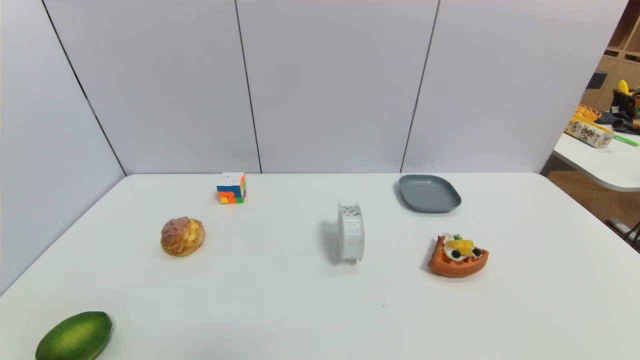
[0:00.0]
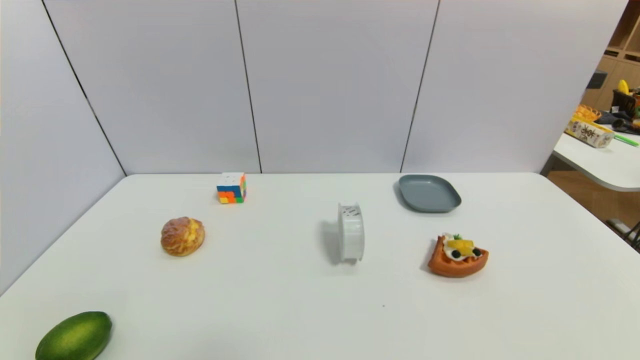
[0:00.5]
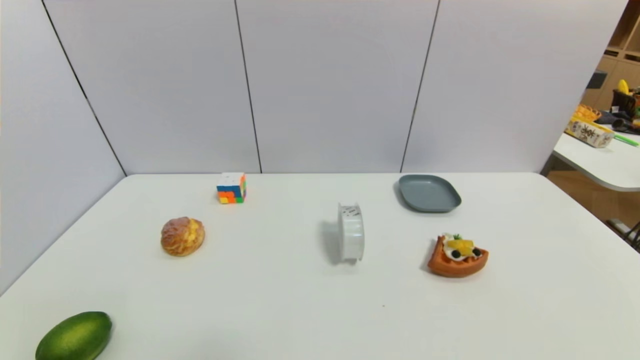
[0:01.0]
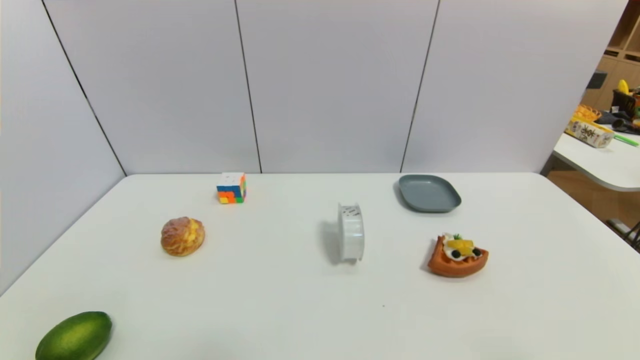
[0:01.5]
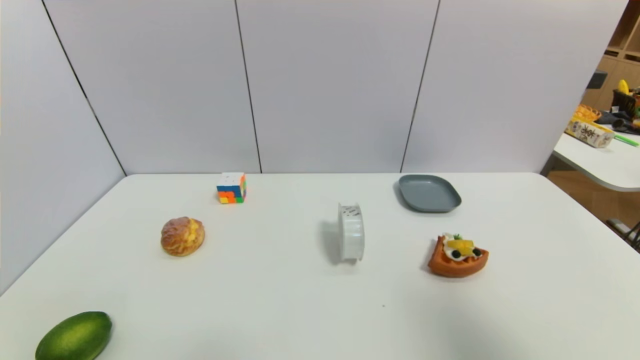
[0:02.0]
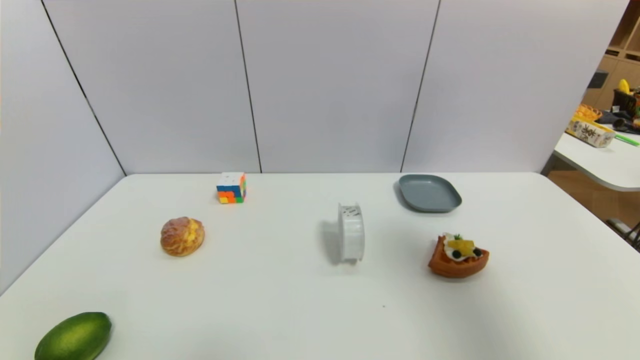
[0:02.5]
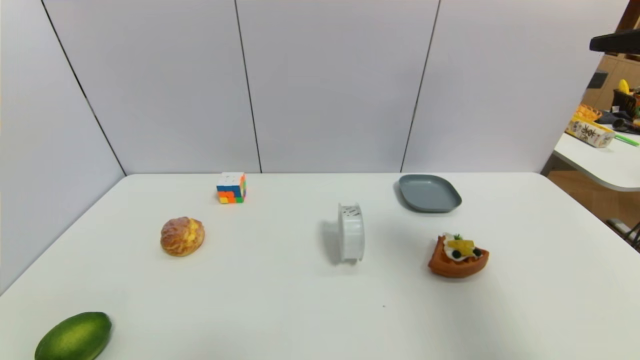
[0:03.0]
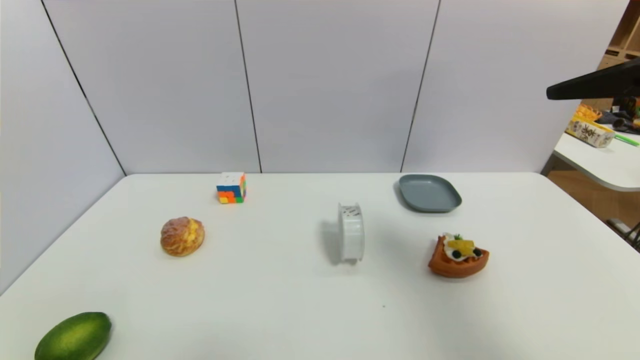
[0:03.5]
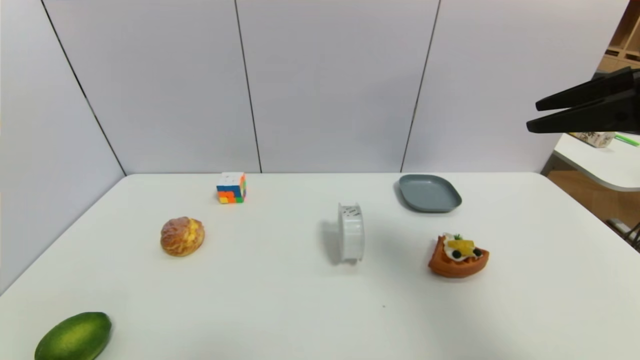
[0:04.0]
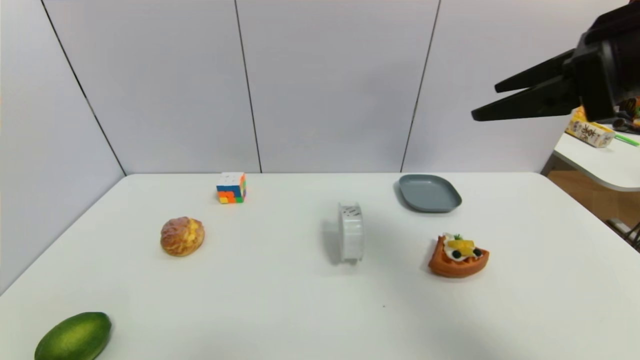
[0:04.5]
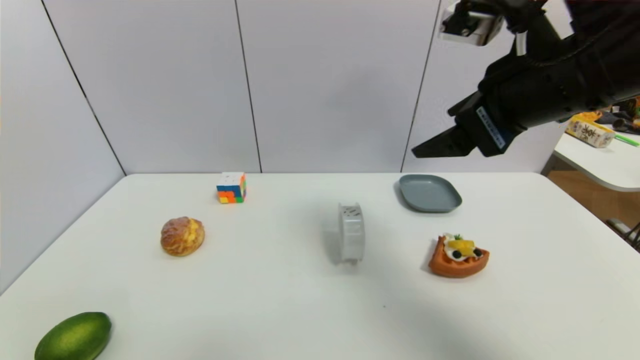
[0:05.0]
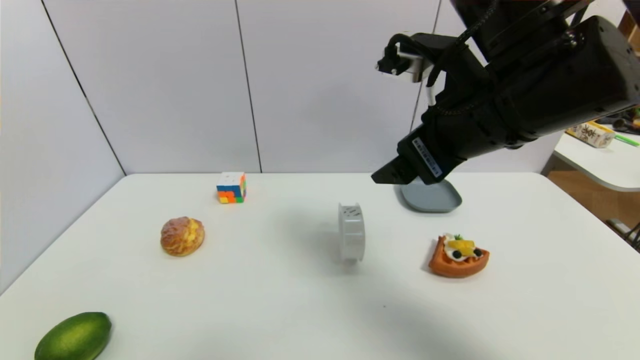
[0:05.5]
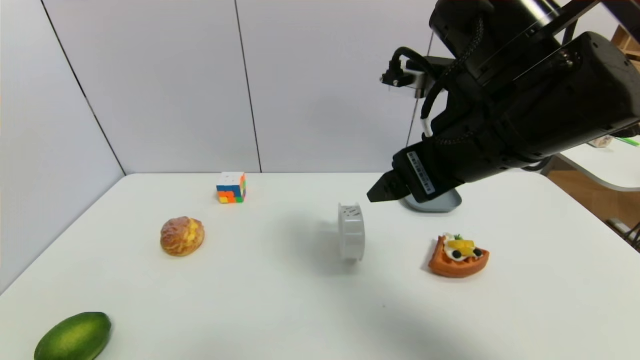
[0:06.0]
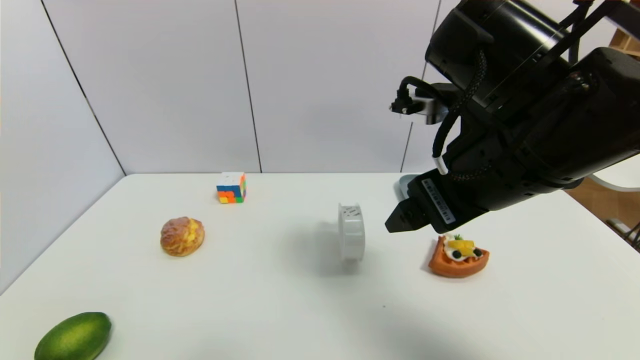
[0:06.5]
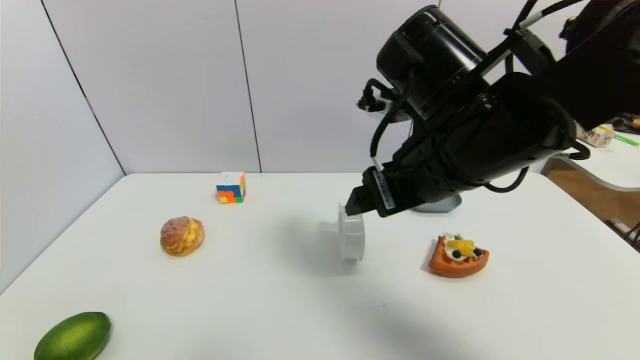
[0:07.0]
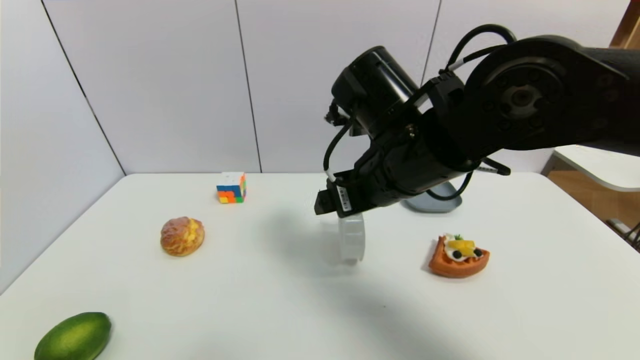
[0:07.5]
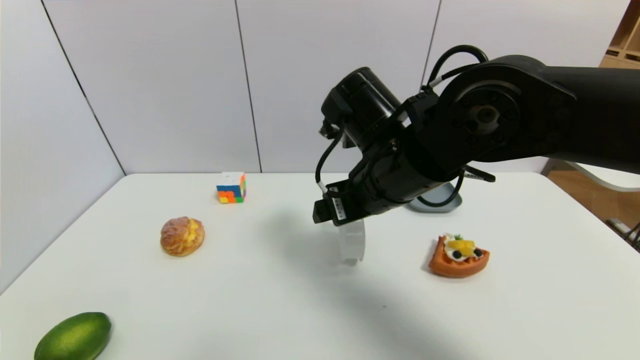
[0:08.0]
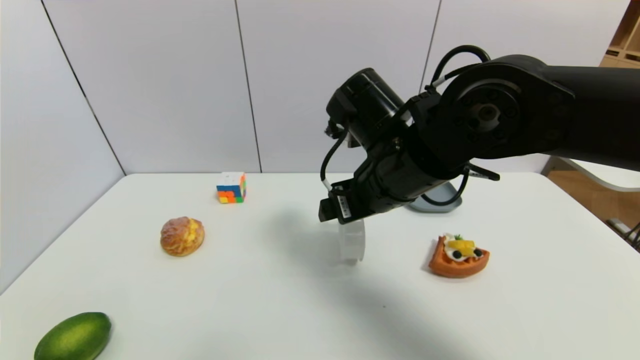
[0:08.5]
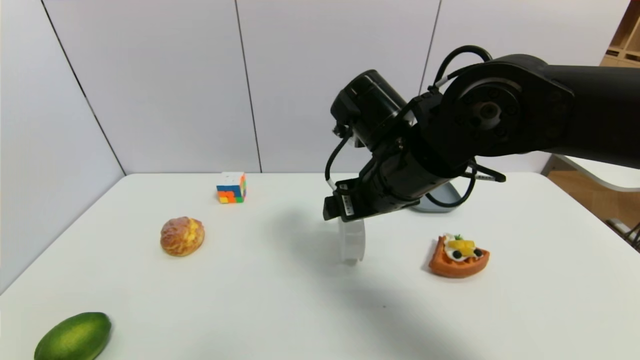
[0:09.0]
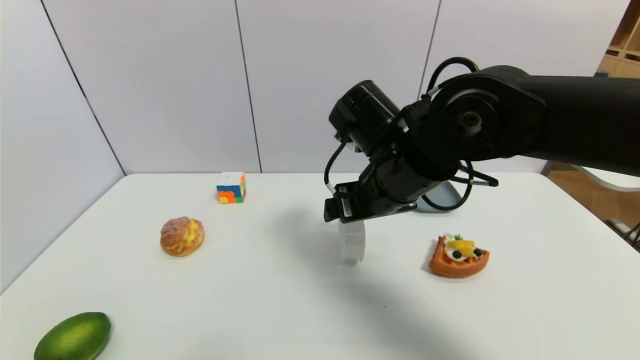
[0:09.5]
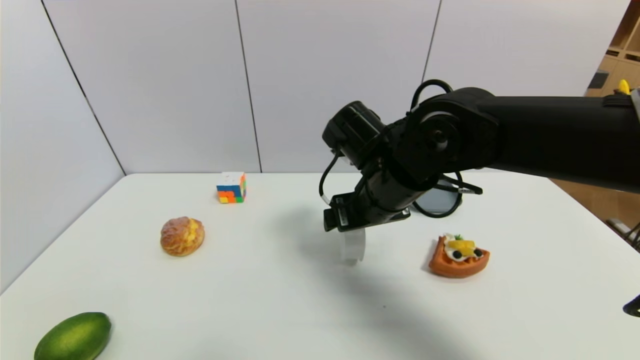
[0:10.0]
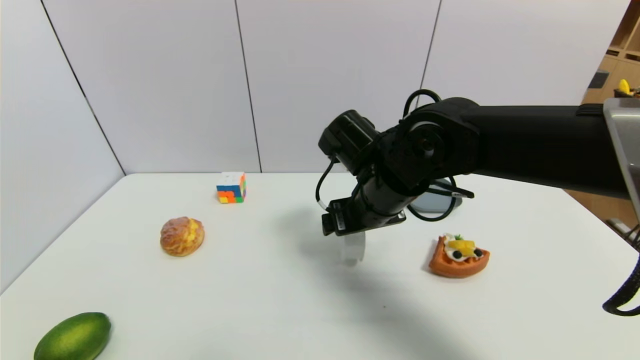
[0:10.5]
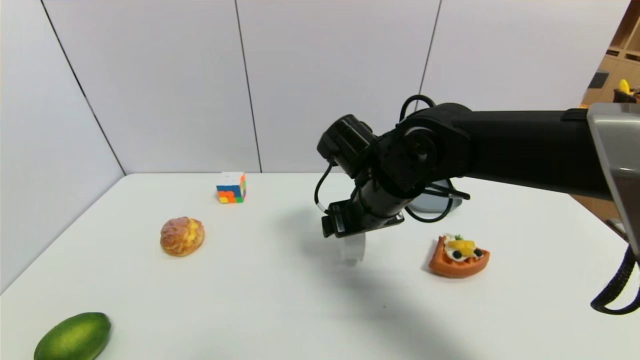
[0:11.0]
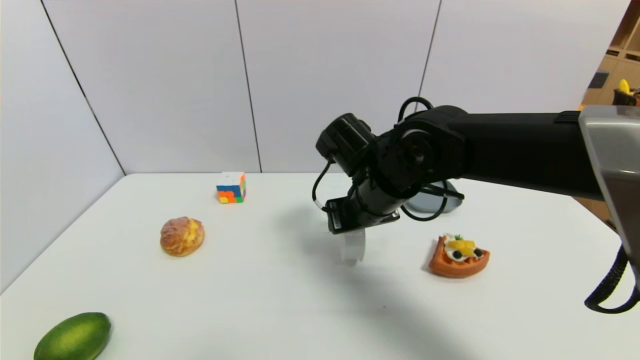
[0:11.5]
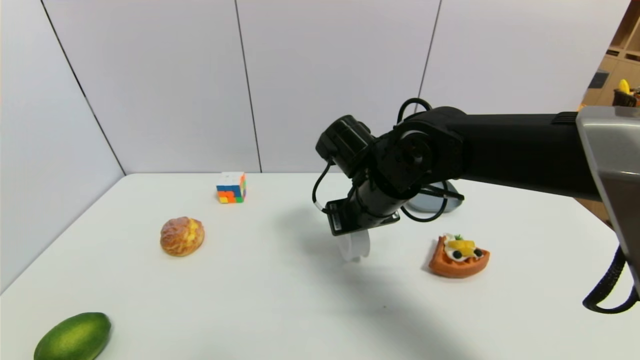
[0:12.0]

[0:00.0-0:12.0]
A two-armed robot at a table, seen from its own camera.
Task of the whole recording: use a gripper to pick the target object and place on the dish.
Step, 0:00.0 to 0:12.0: Grasp the tape with the right gripper.
0:00.0 to 0:02.0: The right gripper heads upward, covering about 30 cm.
0:02.0 to 0:04.0: The right gripper is displaced forward by approximately 15 cm, and opens its fingers.
0:04.0 to 0:06.0: The right gripper heads to the left, covering about 15 cm, and opens its fingers.
0:06.0 to 0:08.0: The right gripper shifts some 10 cm downward and to the left.
0:08.0 to 0:10.0: The grippers make only small movements.
0:10.0 to 0:12.0: The right gripper closes its fingers.

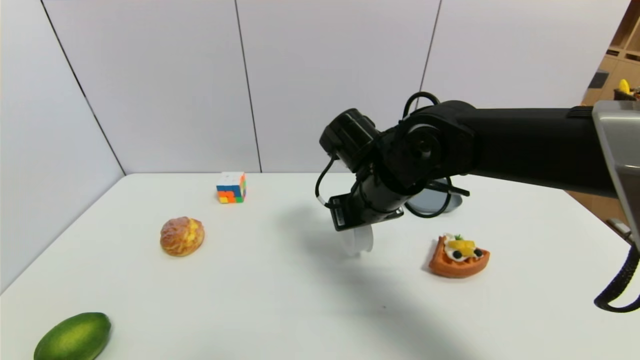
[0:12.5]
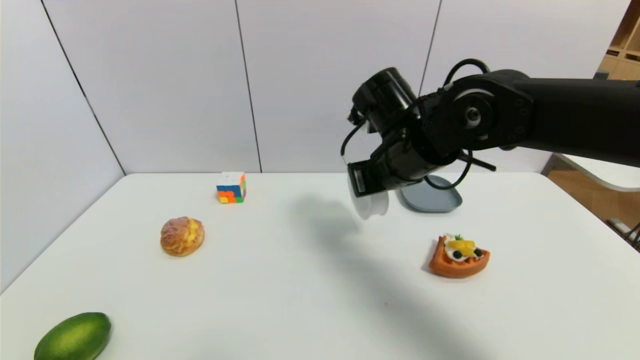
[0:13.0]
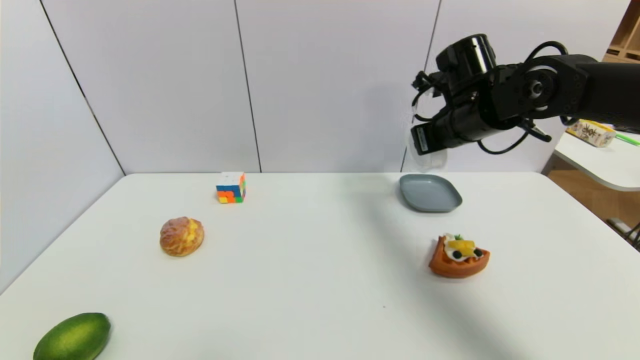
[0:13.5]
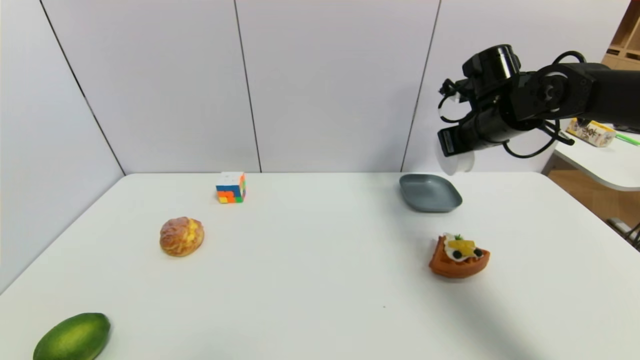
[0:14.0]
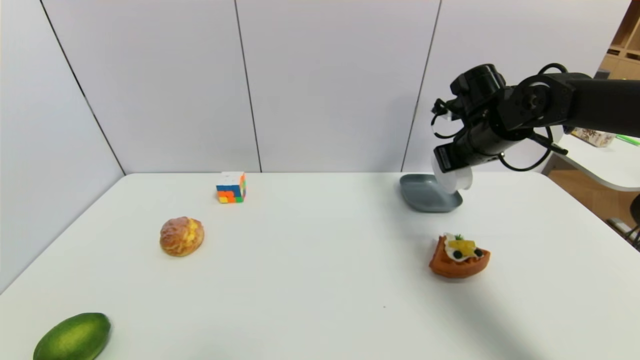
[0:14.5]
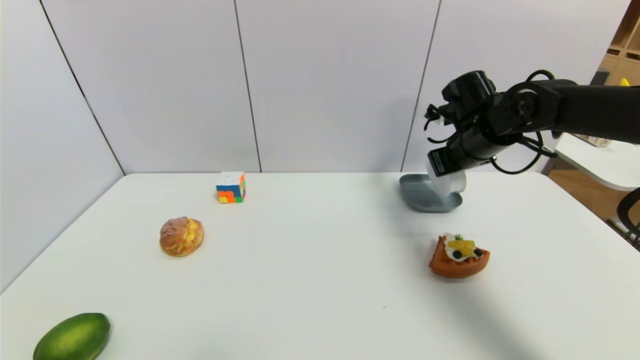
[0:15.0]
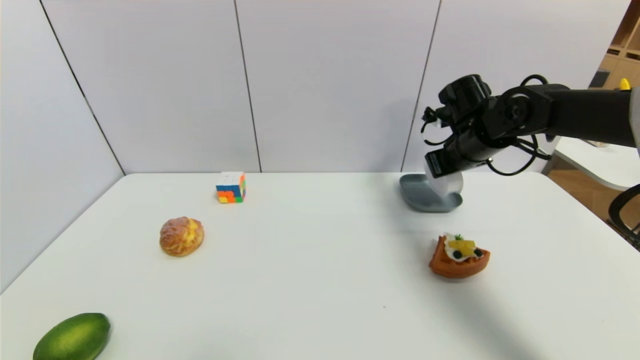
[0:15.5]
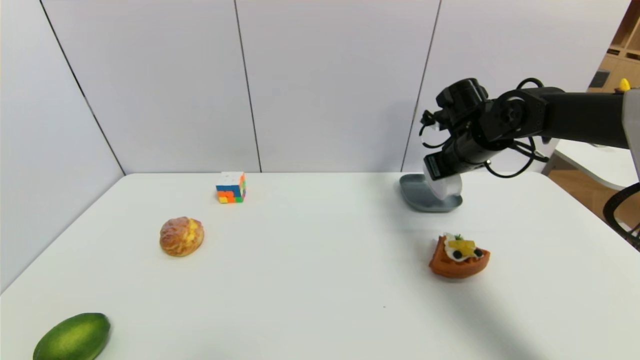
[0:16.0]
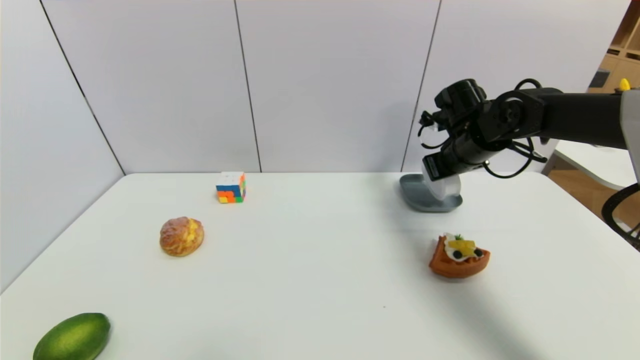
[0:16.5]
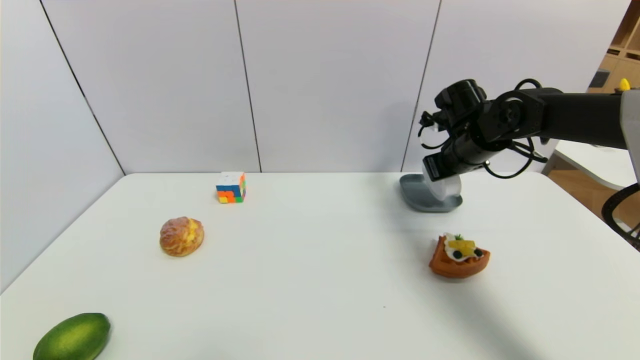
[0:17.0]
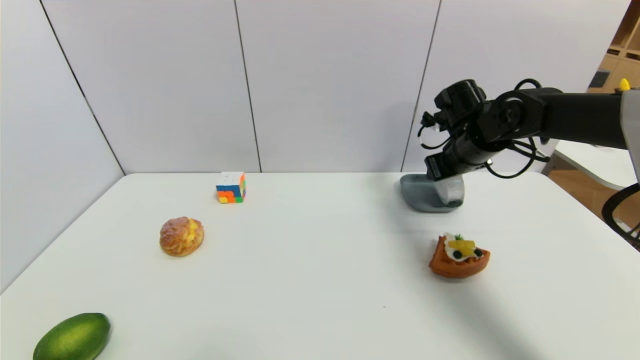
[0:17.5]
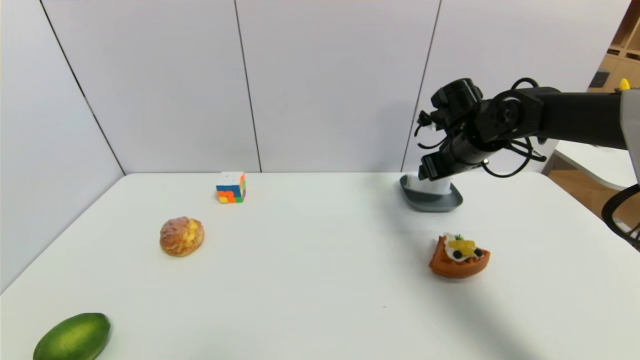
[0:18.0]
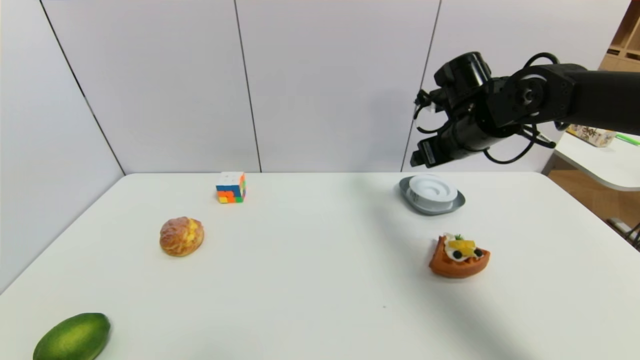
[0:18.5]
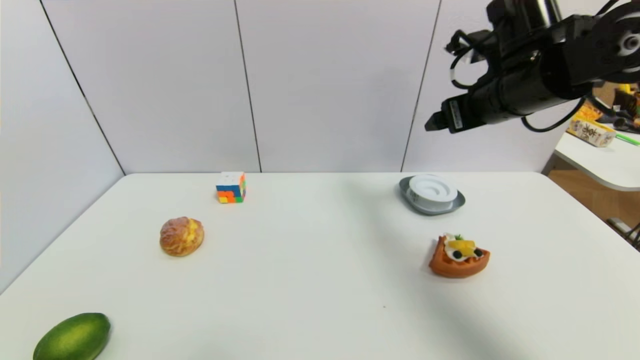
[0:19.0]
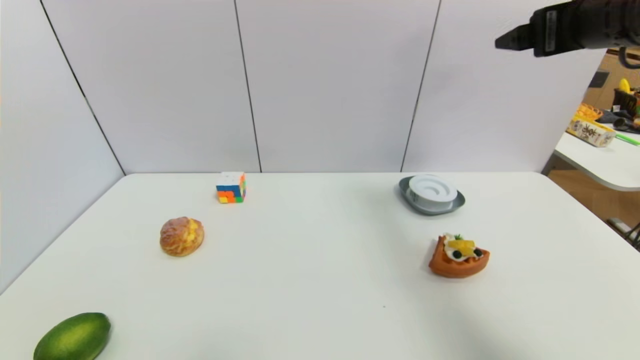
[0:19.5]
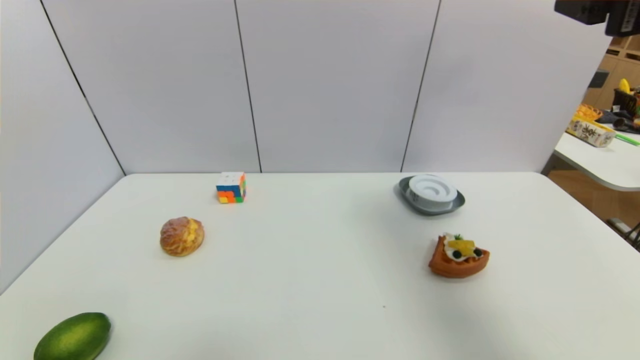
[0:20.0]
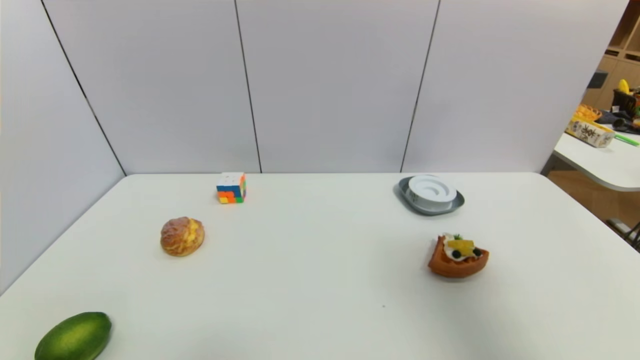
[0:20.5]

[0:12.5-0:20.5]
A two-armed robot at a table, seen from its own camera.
Task of the whole recording: use a gripper to pick the target object and place on the dish.
Step, 0:12.5 to 0:18.5: Place the tape on the dish with the right gripper.
0:12.5 to 0:14.5: The right gripper shifts approximately 20 cm to the right and forward.
0:14.5 to 0:16.5: The grippers make only small movements.
0:16.5 to 0:18.5: The right gripper ends up about 5 cm from where it was, and opens.
0:18.5 to 0:20.5: The right gripper goes about 35 cm backward, upward and to the right.
